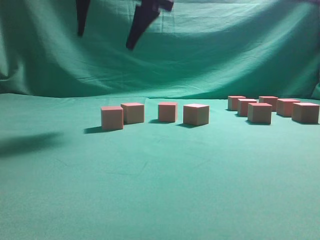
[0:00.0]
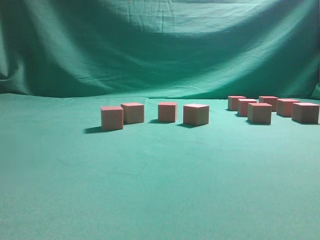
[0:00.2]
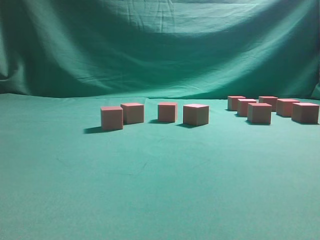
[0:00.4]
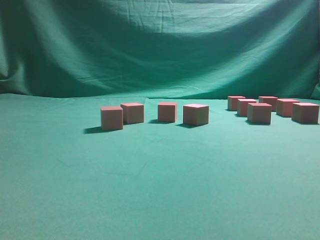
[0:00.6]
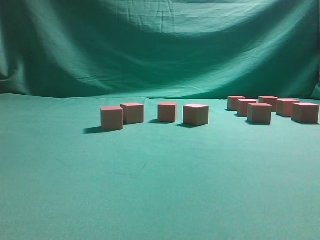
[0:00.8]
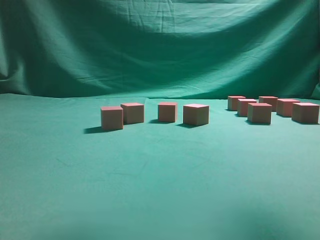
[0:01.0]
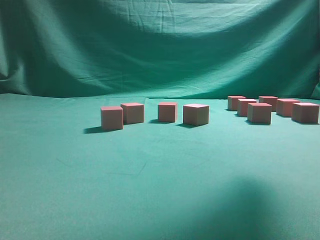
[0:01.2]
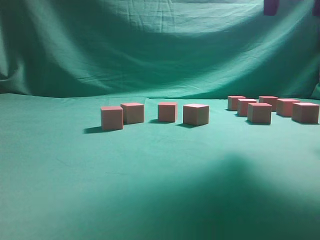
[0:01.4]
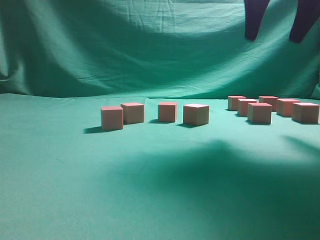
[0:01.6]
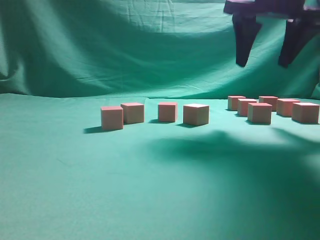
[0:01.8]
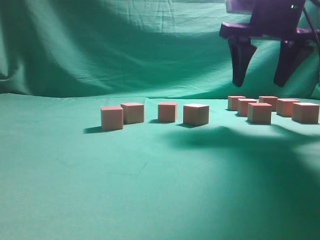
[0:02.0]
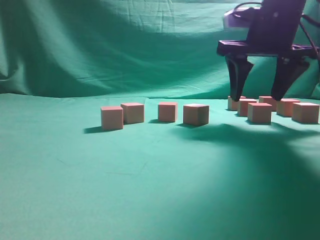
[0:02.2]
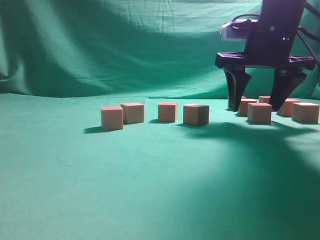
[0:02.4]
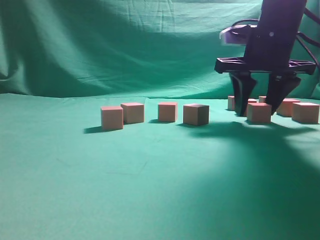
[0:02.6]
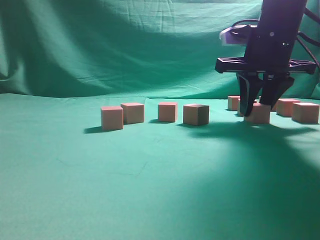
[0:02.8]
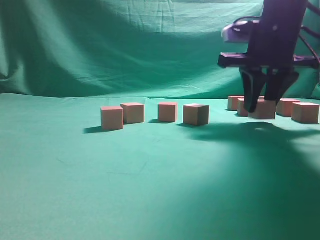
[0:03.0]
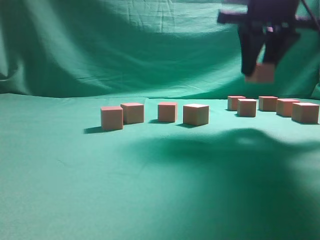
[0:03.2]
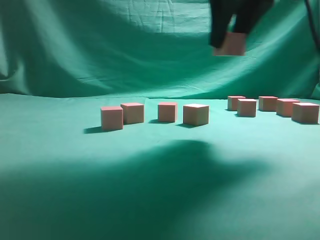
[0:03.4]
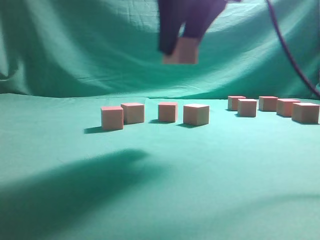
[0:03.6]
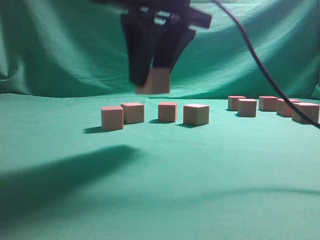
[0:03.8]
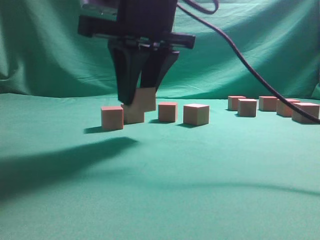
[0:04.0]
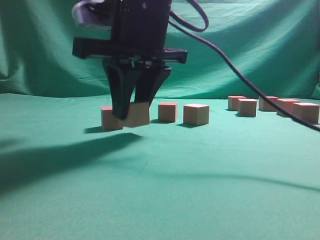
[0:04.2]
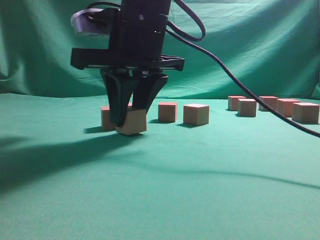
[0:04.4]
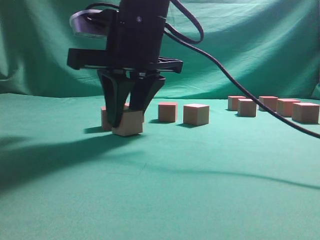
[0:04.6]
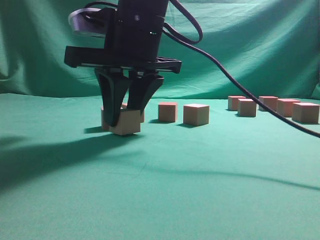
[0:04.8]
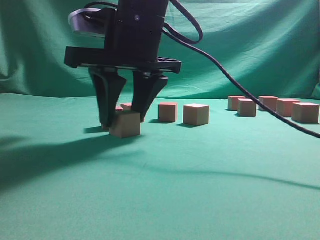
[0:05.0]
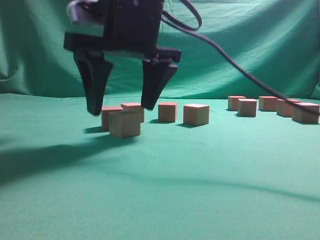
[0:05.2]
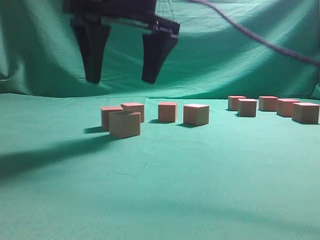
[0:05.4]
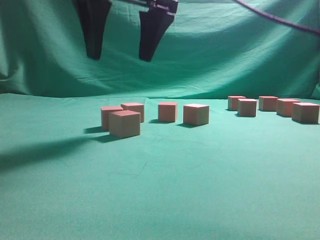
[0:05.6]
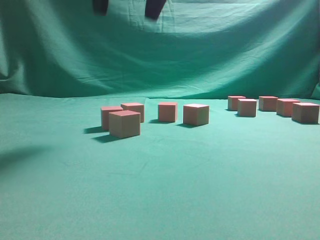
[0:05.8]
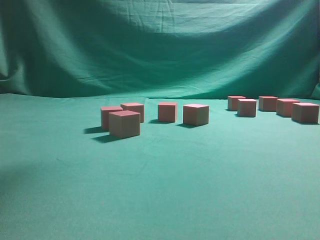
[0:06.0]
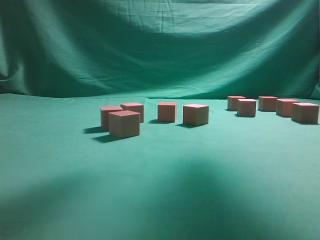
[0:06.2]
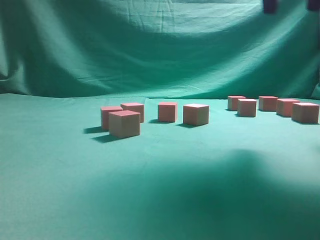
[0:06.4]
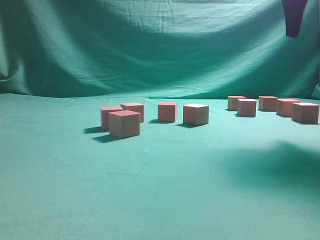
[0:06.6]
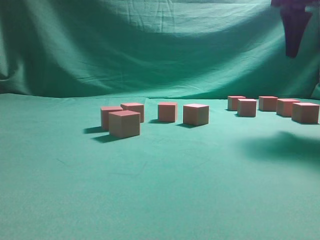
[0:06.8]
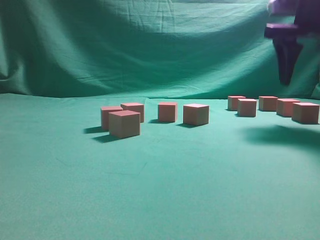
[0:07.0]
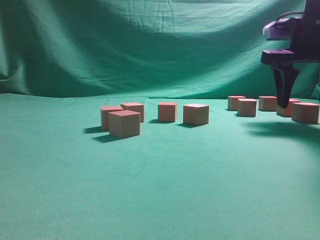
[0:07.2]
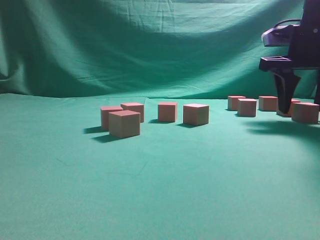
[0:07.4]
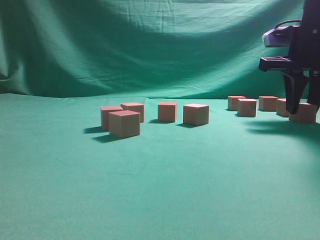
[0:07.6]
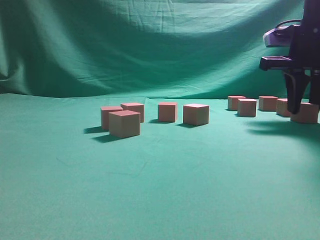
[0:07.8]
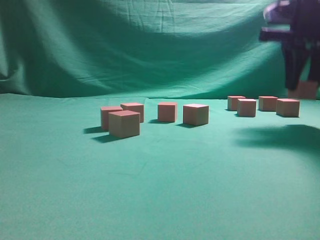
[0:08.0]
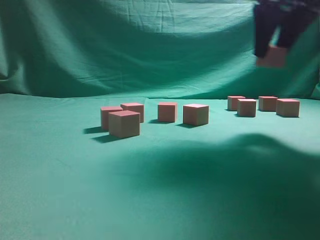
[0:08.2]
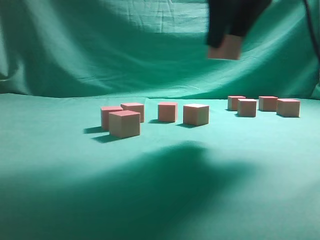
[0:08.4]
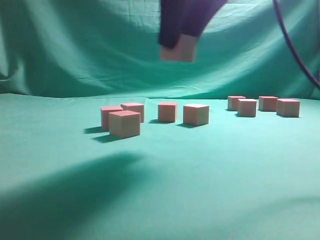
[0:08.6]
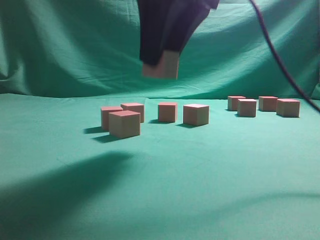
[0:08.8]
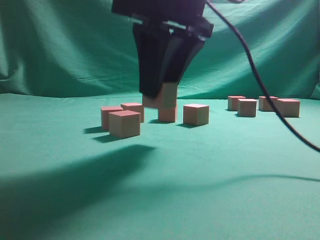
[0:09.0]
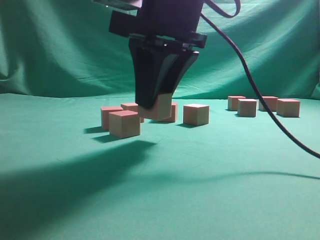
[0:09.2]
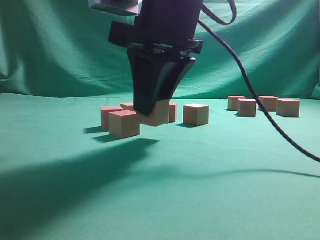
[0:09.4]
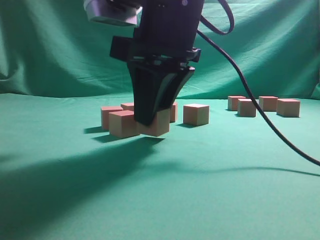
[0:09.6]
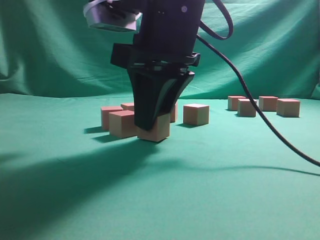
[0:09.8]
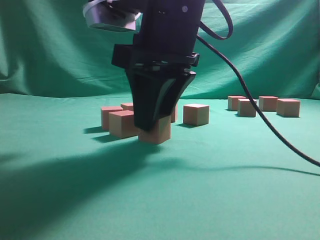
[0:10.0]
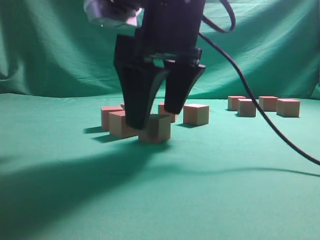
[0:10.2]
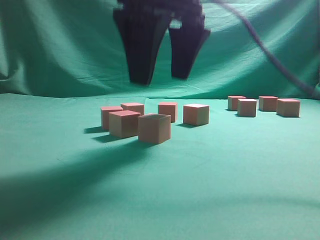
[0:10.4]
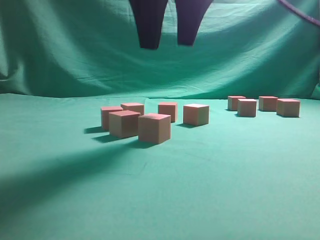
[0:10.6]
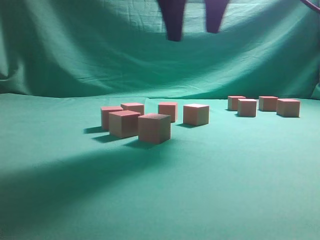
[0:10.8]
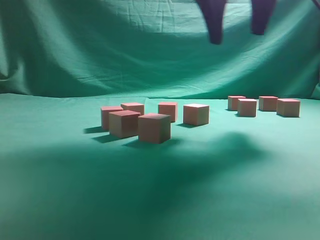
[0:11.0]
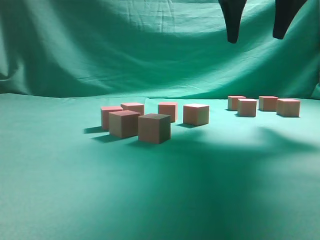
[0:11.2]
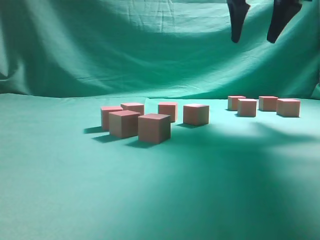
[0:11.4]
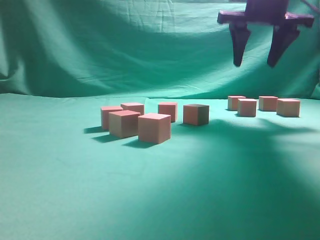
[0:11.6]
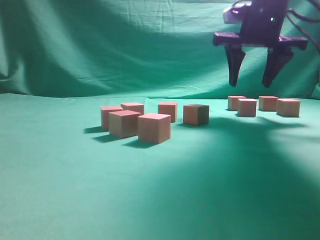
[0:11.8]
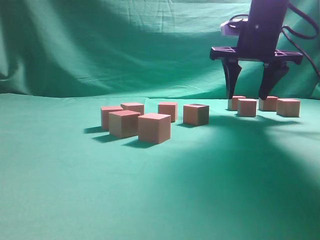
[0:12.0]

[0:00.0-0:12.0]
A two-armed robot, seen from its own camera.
Task of the whole recording: pick up the multiple cubes in two columns one by one and place them in another position on the table.
Step, 0:00.0 to 0:03.2: Pick up the block on the table.
Step, 0:03.4 to 0:05.4: Place the block at the correct position to assemble the letter S.
Step, 0:05.8 to 0:08.0: Pick up the block on the table.
Step, 0:08.2 to 0:10.4: Place the block at the correct position to assemble the letter S.
0:00.0 to 0:01.6: The right gripper is displaced to the right by roughly 20 cm.
0:01.6 to 0:03.0: The right gripper goes some 10 cm downward, and closes up.
0:03.0 to 0:04.4: The right gripper heads to the left, covering roughly 20 cm.
0:04.4 to 0:06.0: The right gripper travels upward by about 20 cm, and opens.
0:06.0 to 0:07.6: The right gripper goes approximately 30 cm downward, to the right and forward, and closes up.
0:07.6 to 0:09.0: The right gripper goes roughly 25 cm to the left and backward.
0:09.0 to 0:10.4: The right gripper opens its fingers.
0:10.4 to 0:12.0: The right gripper is displaced forward and to the right by approximately 20 cm.

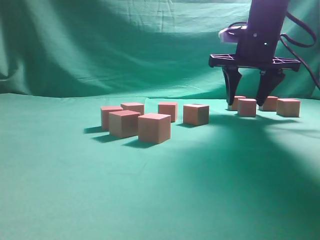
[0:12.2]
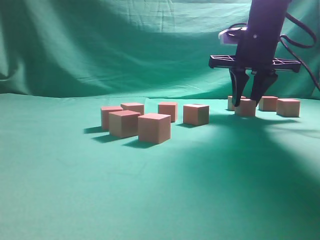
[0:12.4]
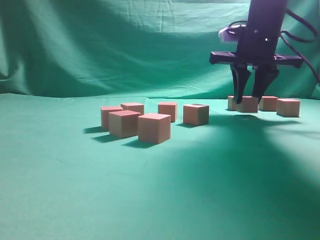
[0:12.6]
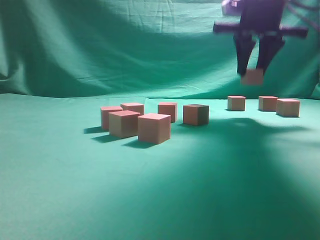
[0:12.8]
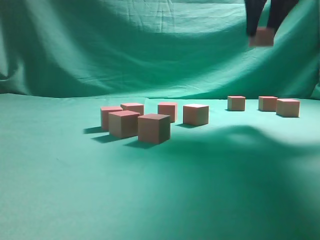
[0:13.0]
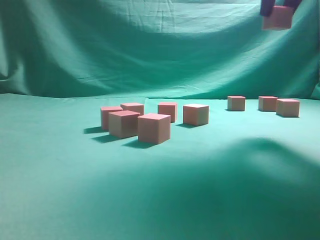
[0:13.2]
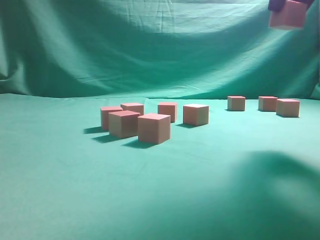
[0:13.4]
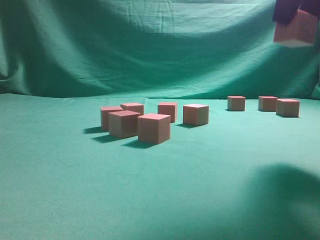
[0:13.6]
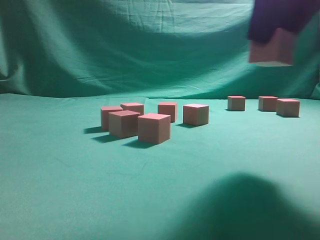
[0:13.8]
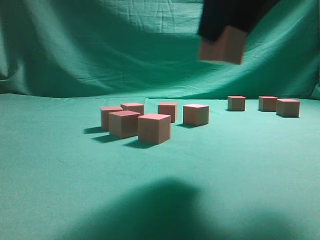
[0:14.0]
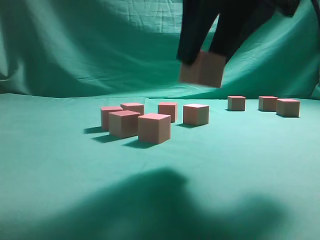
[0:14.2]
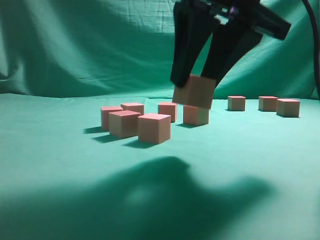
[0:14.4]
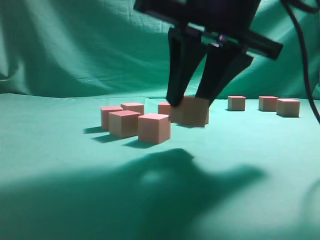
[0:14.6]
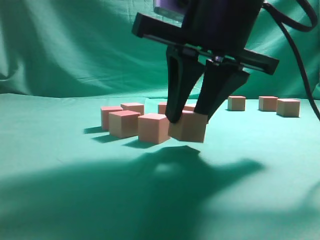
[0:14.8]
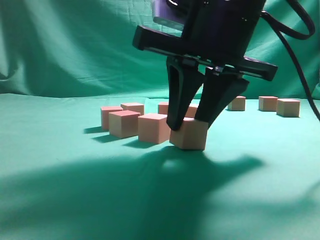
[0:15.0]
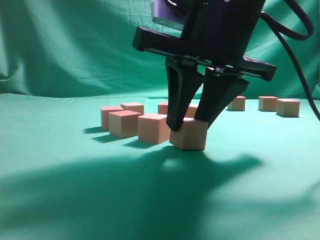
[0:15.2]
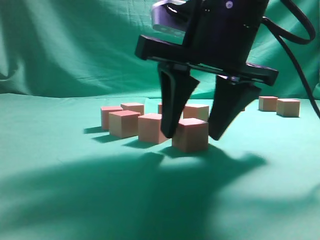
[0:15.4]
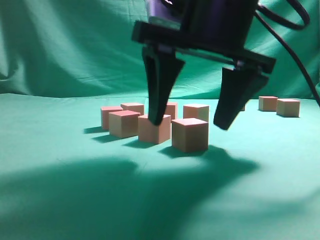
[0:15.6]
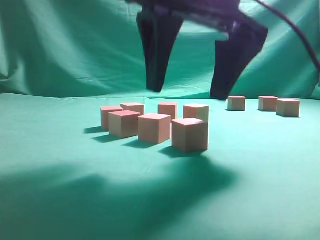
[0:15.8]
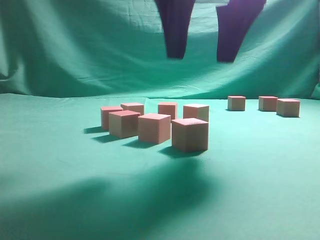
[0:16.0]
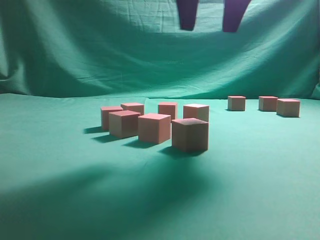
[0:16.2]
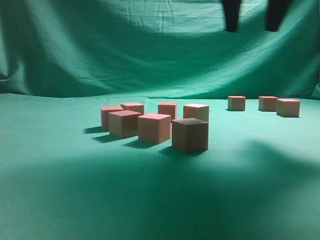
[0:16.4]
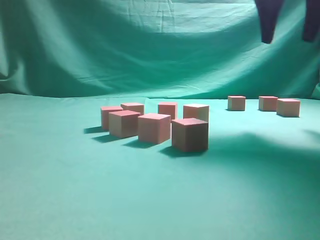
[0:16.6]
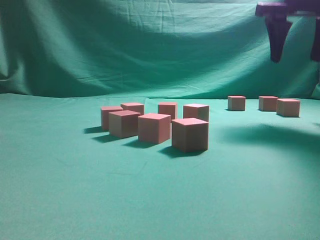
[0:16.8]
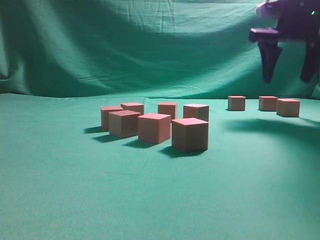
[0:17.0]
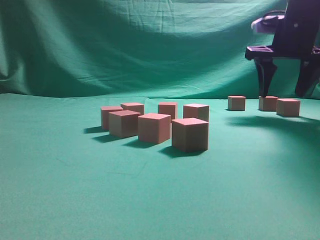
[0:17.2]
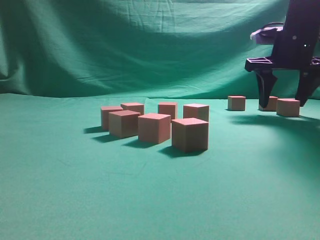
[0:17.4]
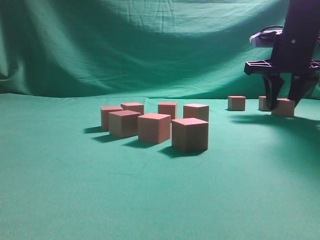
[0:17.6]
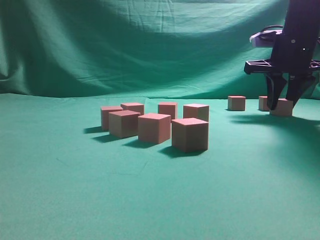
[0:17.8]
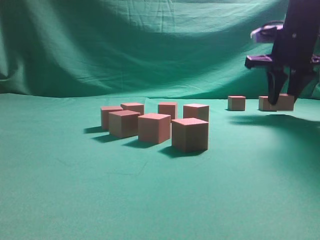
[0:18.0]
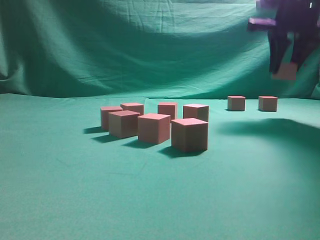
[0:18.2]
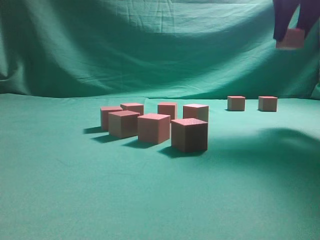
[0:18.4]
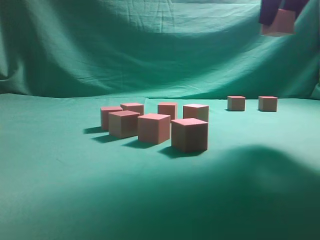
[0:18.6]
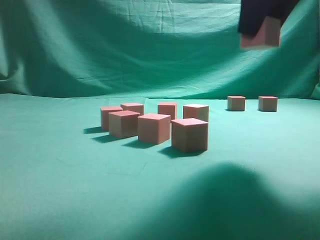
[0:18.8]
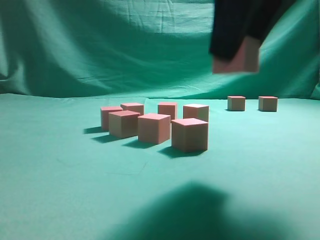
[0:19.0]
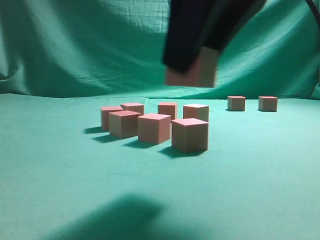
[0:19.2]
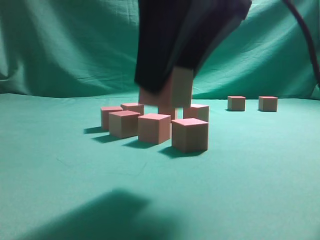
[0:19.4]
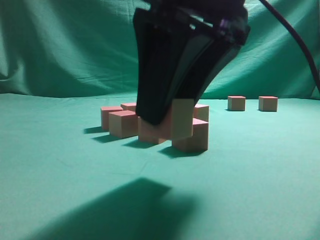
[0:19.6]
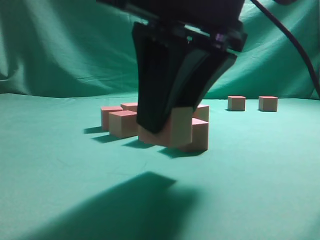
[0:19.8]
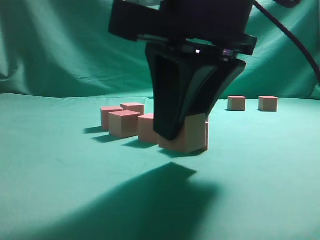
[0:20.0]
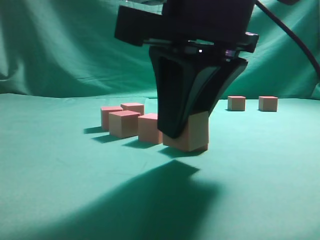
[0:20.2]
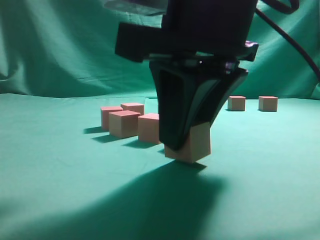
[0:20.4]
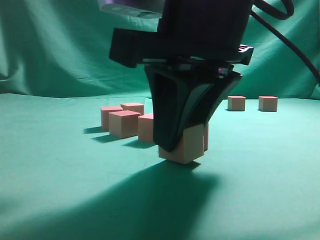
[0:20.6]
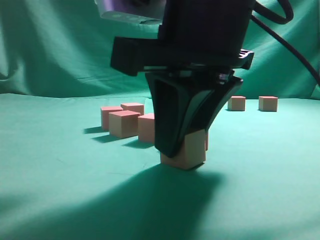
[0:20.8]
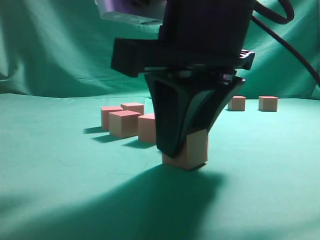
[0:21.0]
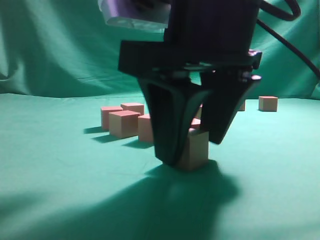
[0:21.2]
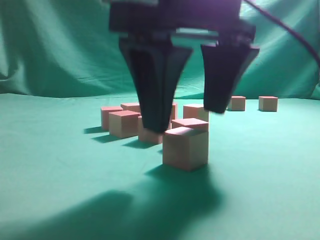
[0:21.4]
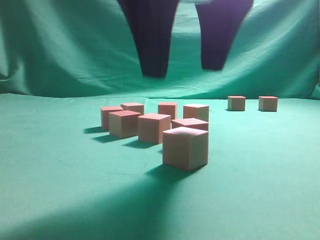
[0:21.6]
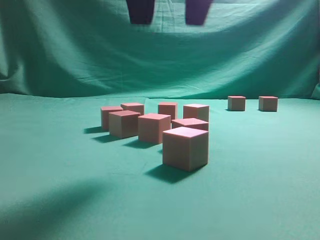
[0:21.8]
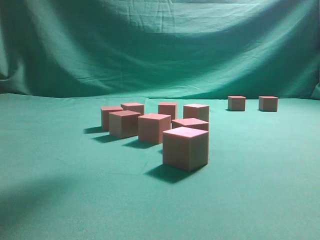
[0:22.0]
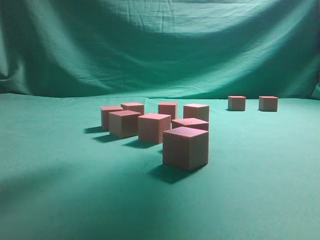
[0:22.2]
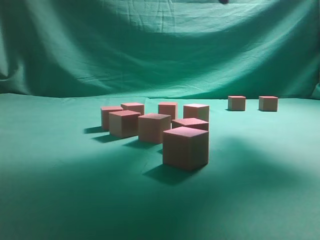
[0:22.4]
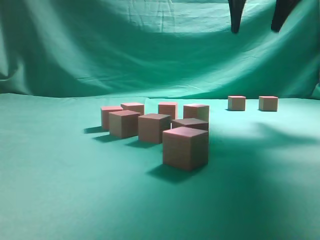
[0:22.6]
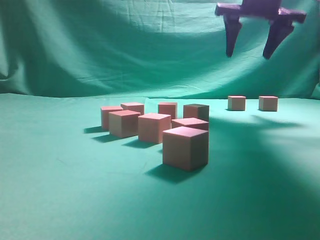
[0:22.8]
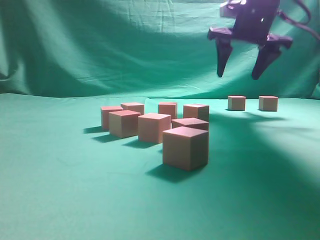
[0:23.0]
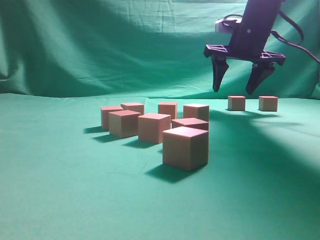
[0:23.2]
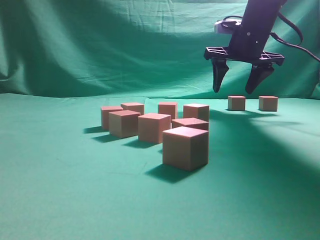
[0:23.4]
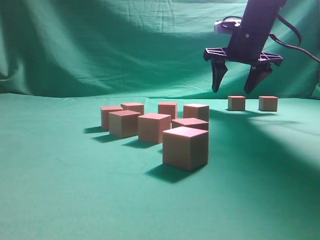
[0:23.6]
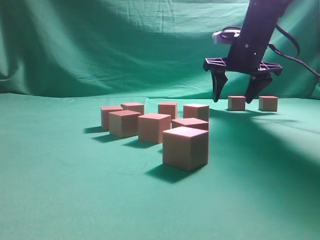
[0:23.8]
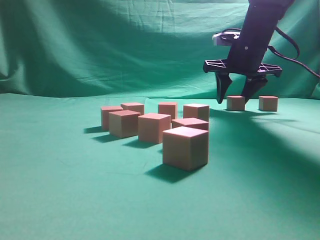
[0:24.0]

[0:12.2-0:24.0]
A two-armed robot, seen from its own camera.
Task of the whole recording: pick up the multiple cubes in two columns one by one and place them in another position on the table.
Step, 0:13.2 to 0:15.8: Place the block at the correct position to assemble the letter S.
Step, 0:16.0 to 0:18.4: Pick up the block on the table.
Step, 0:18.6 to 0:21.4: Place the block at the correct position to assemble the letter S.
0:12.2 to 0:13.6: The right gripper is displaced backward and upward by some 20 cm.
0:13.6 to 0:15.2: The right gripper shifts roughly 15 cm to the left and downward.
0:15.2 to 0:16.6: The right gripper travels to the right, forward and upward by about 20 cm, and opens its fingers.
0:16.6 to 0:18.2: The right gripper moves about 10 cm downward and comes back, and closes.
0:18.2 to 0:19.6: The right gripper shifts about 30 cm backward and to the left.
0:21.0 to 0:22.6: The right gripper travels forward, to the right and upward by about 30 cm, and opens its fingers.
0:22.6 to 0:24.0: The right gripper goes about 15 cm downward and forward.
